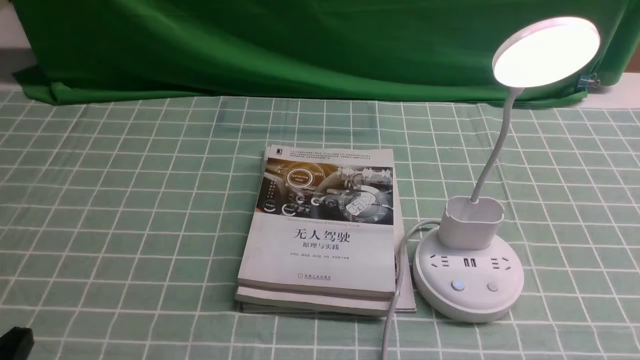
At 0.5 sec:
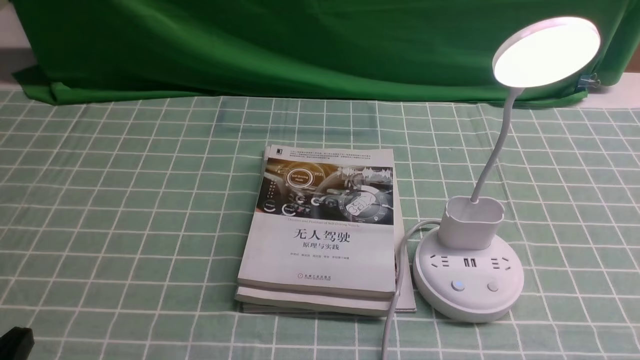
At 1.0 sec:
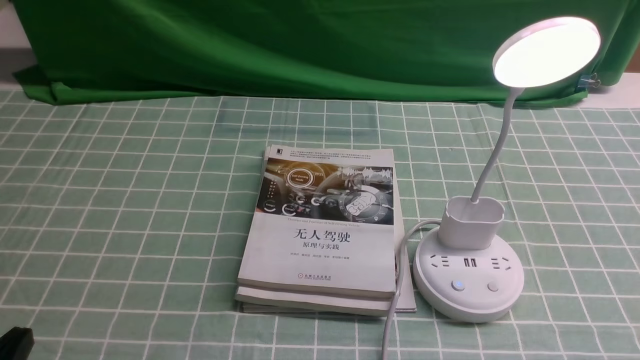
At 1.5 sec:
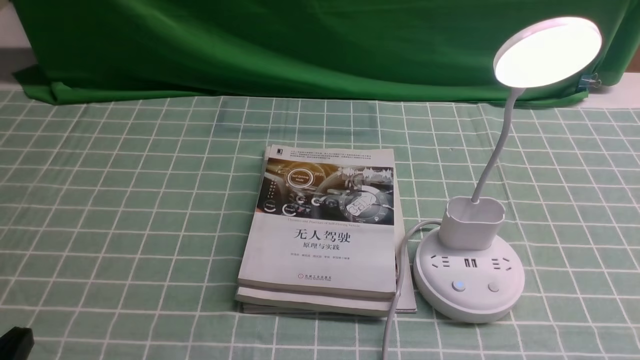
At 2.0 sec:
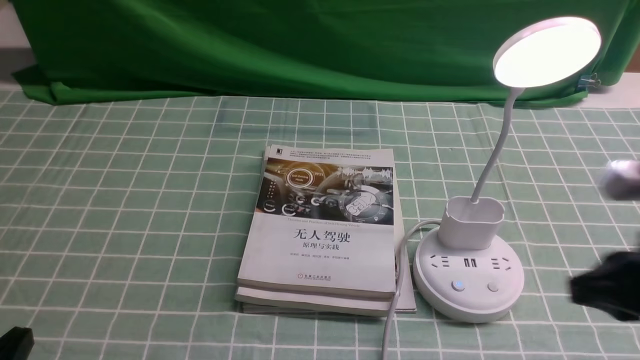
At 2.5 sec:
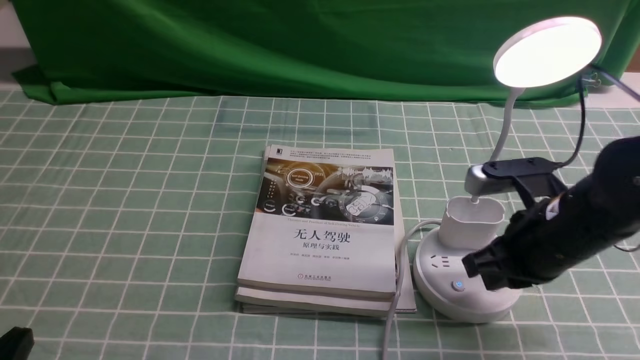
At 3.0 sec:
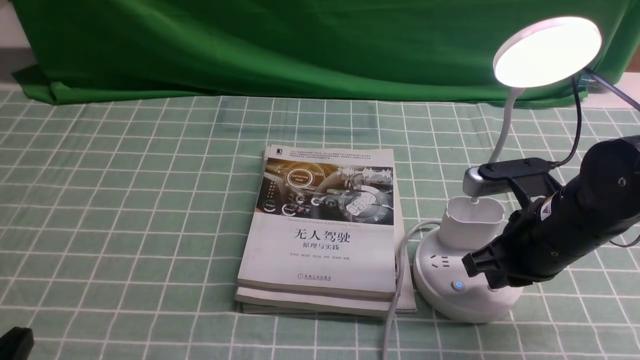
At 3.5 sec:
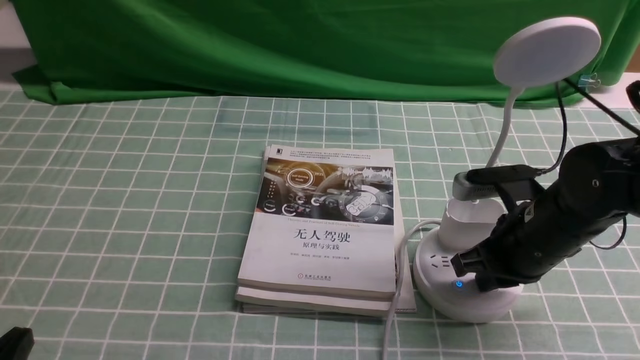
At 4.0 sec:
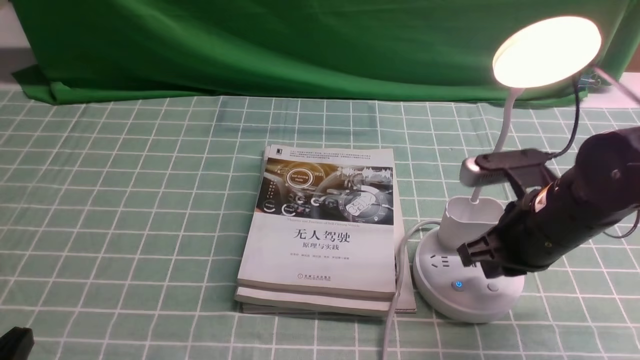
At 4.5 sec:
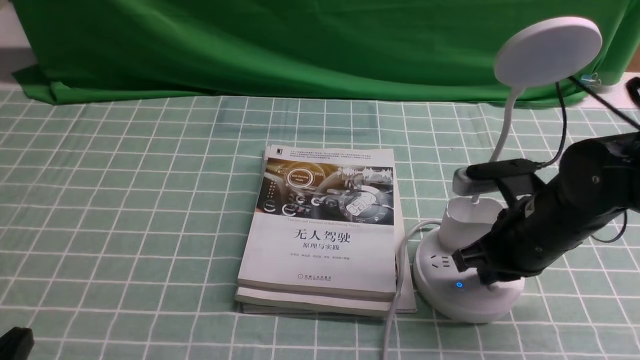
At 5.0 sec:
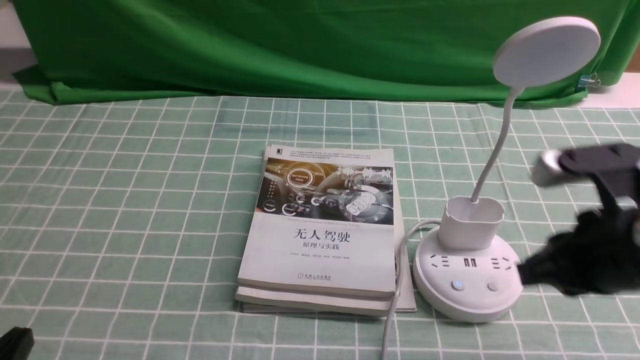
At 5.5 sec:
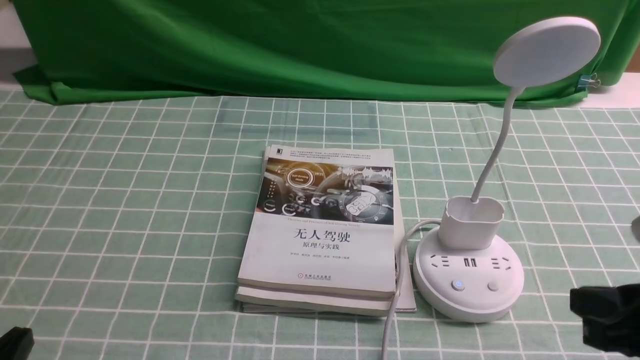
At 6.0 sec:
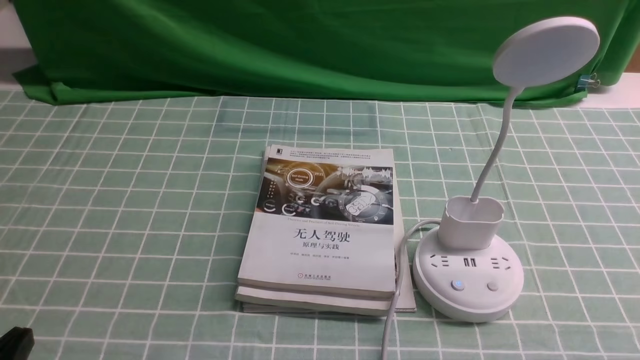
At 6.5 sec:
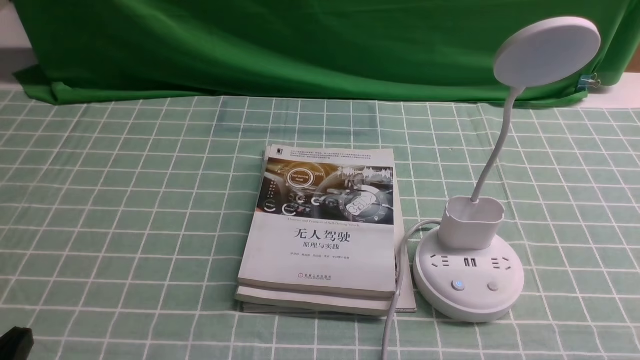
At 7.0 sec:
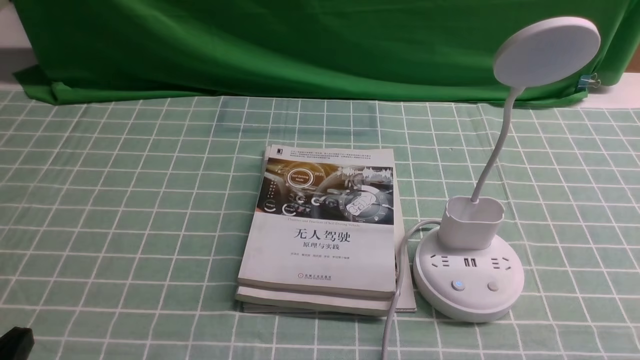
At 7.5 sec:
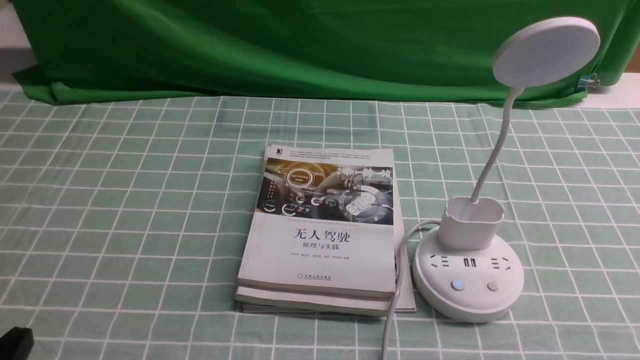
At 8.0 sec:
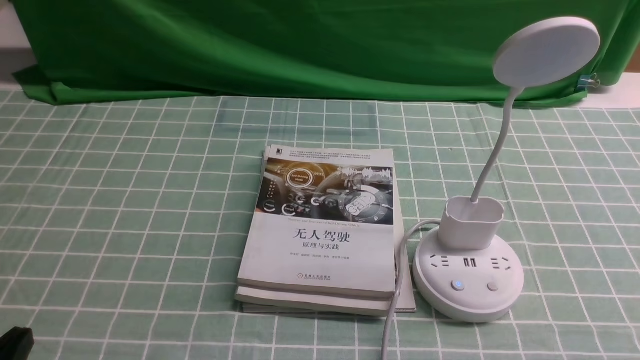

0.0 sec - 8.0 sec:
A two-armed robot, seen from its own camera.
Task of the whole recording: turn off the desk lamp on the blue coffee tablecloth by hand.
Step, 0.0 sec - 4.5 sec: use the right arm to press the button switch on the lamp holder.
2.0 sec - 4.0 sec: The right gripper is displaced forward, downward and to the left by some 15 cm.
4.0 sec - 6.0 sec: The right gripper travels backward and to the right by some 20 cm.
